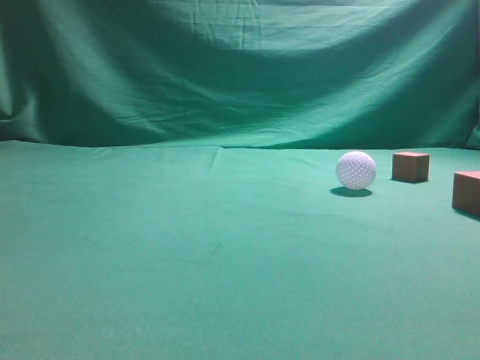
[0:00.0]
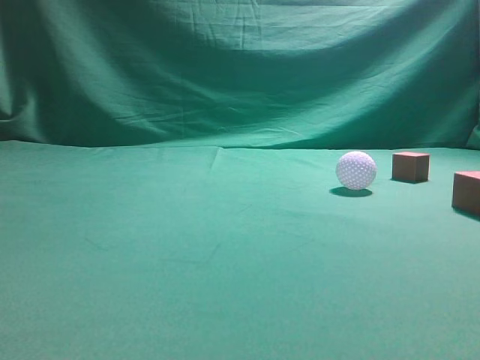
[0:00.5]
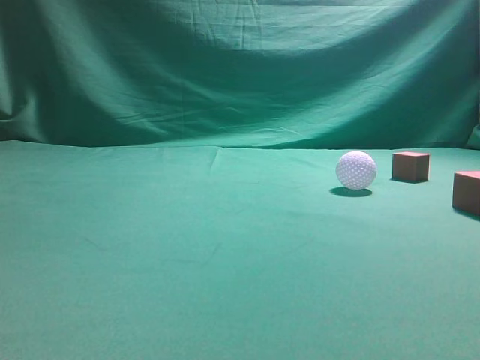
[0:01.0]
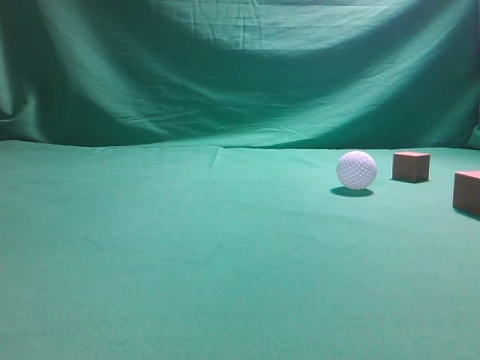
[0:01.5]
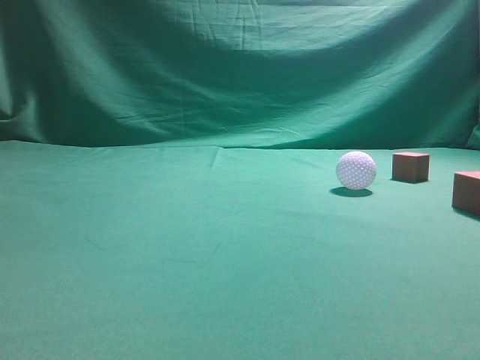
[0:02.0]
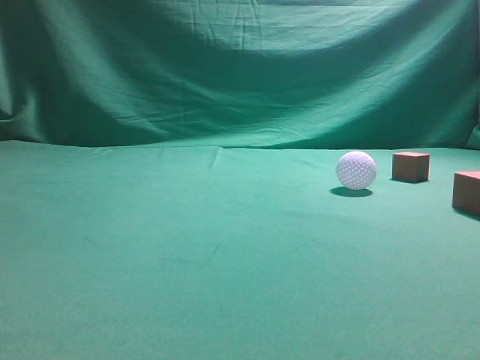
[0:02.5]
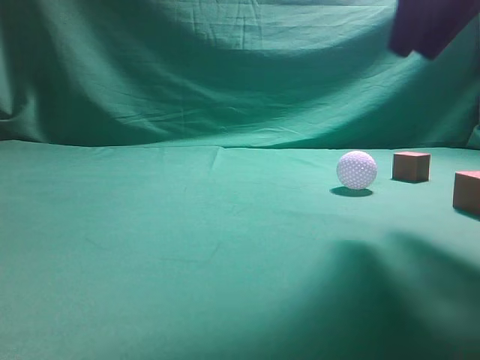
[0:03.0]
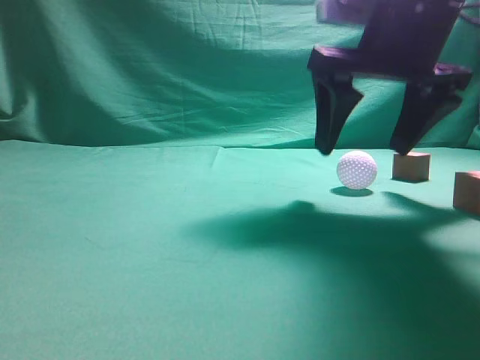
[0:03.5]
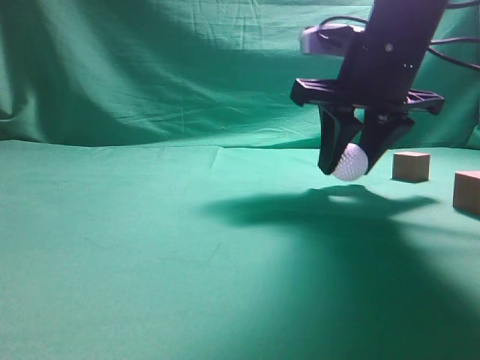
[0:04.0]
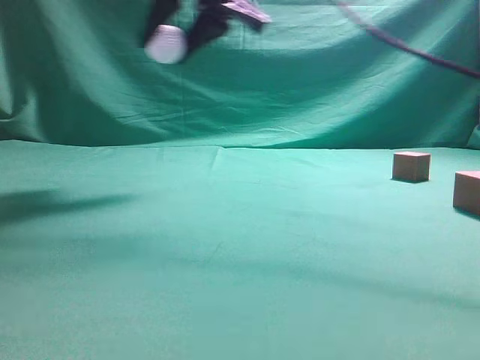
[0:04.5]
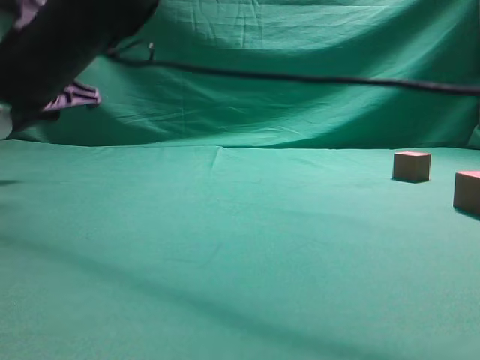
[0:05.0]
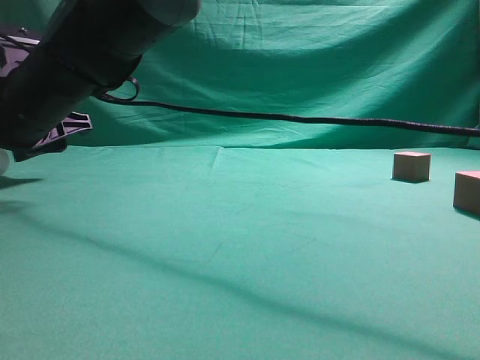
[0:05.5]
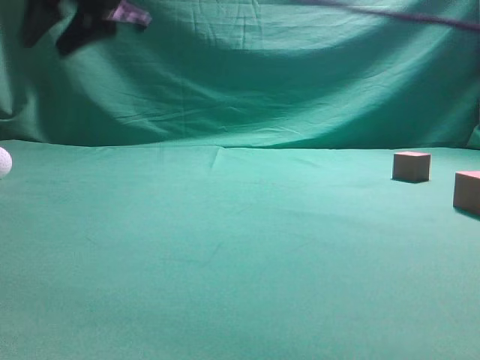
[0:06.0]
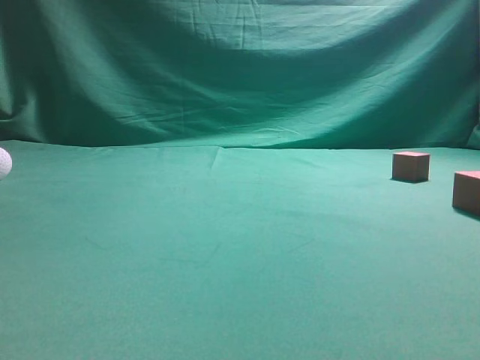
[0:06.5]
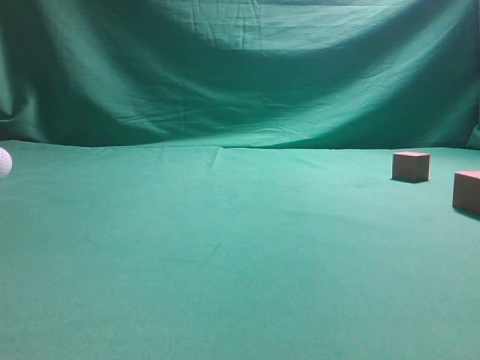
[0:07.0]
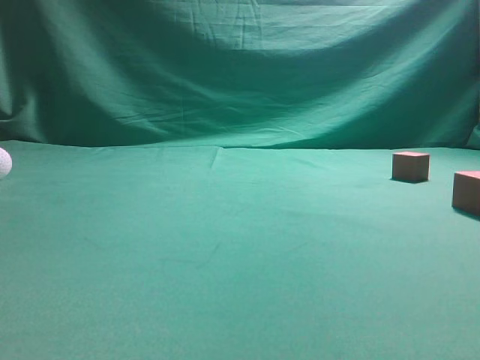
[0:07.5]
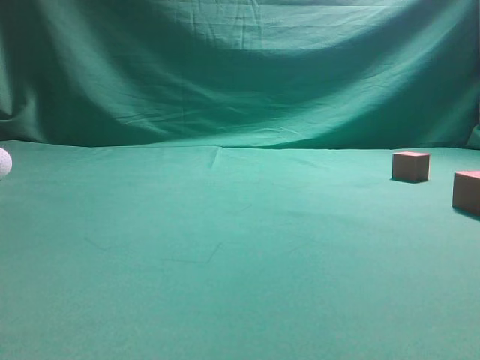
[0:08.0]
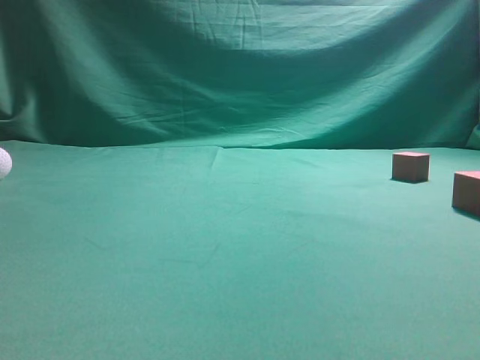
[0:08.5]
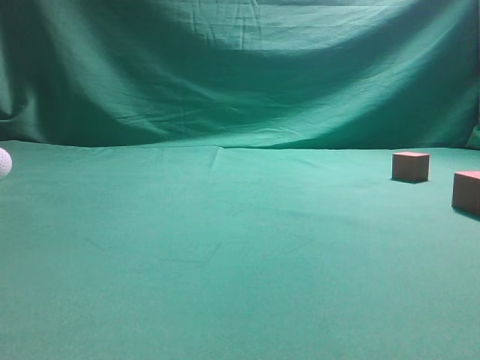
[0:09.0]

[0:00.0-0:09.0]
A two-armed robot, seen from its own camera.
Step, 0:00.0 to 0:04.0: Grasp the spherical object on the right side.
0:02.0 to 0:04.5: The right gripper travels to the left and forward by some 50 cm, and opens its fingers.
0:04.5 to 0:07.0: The right gripper goes some 35 cm to the right, backward and upward, and closes.
